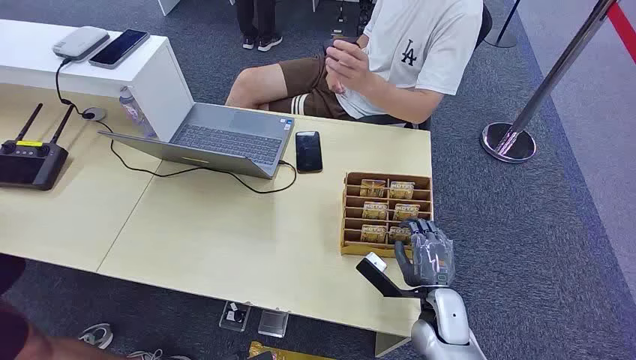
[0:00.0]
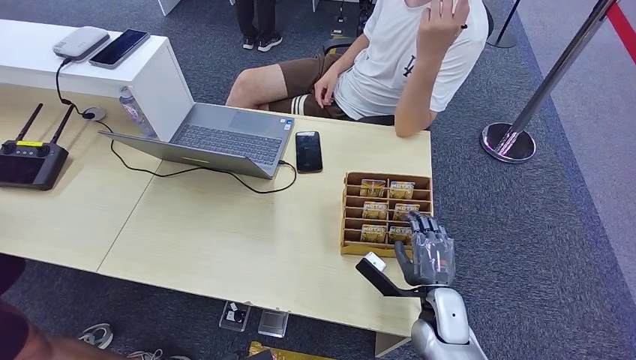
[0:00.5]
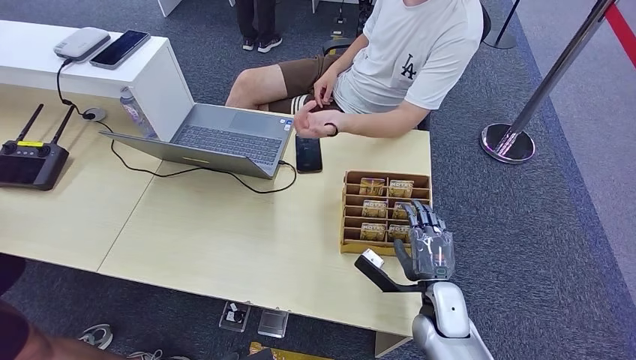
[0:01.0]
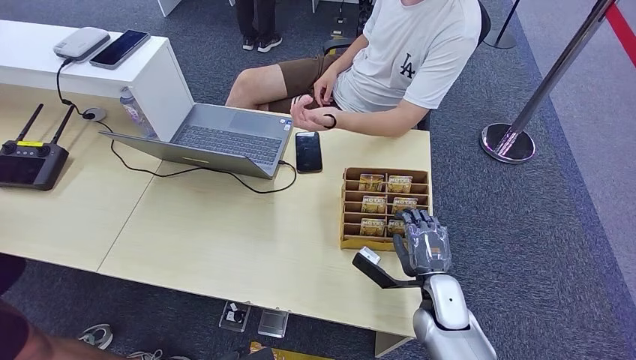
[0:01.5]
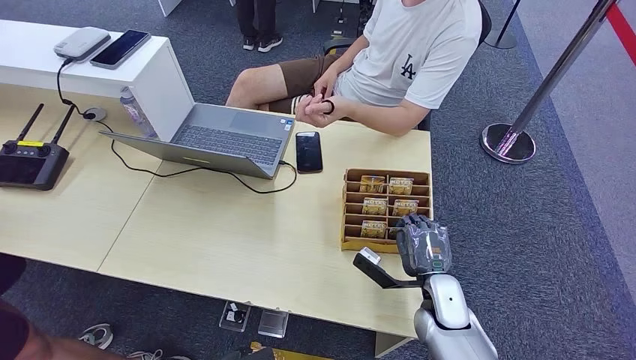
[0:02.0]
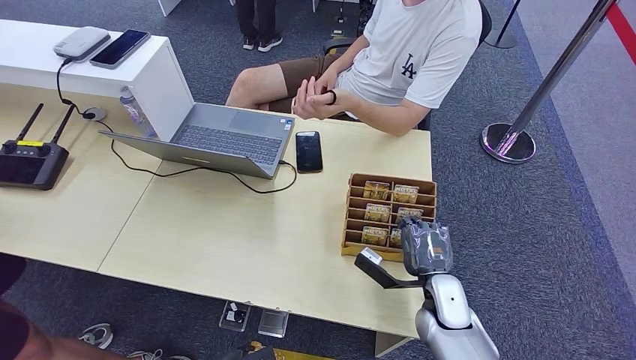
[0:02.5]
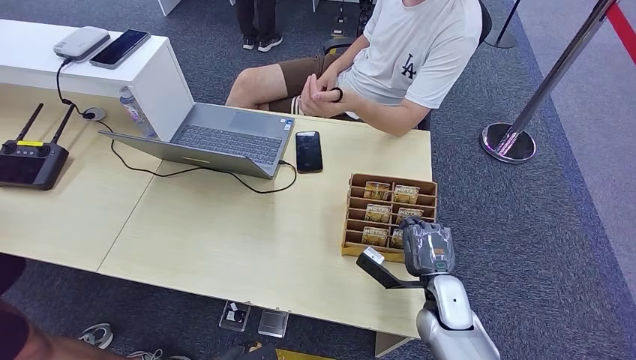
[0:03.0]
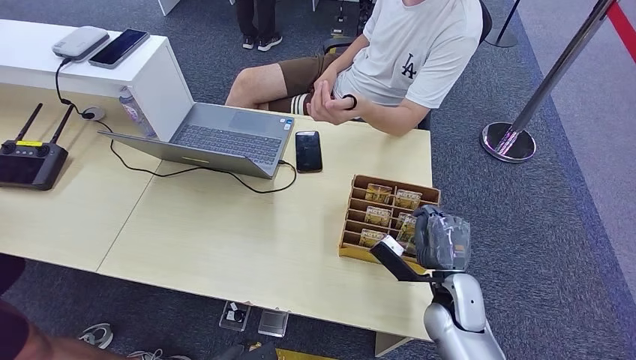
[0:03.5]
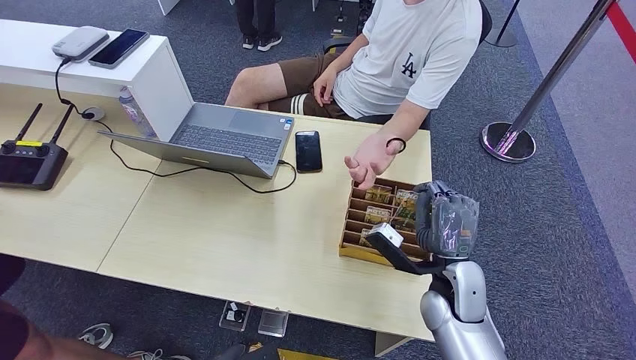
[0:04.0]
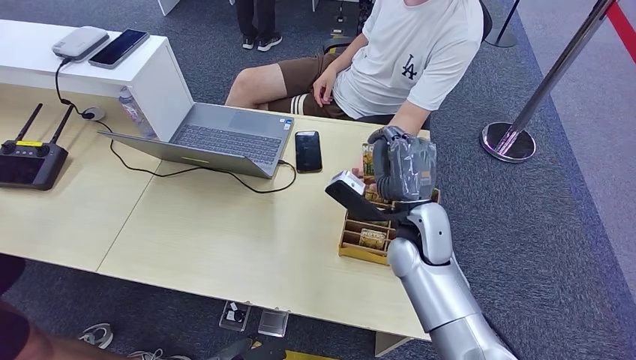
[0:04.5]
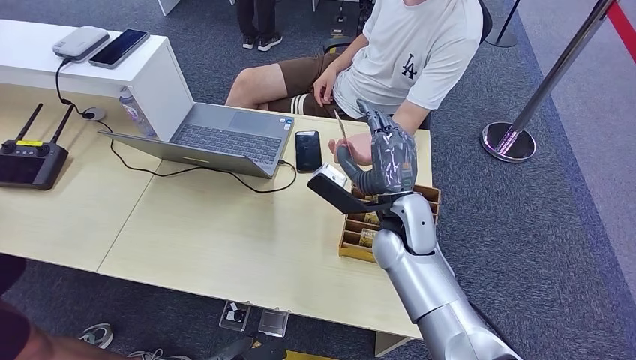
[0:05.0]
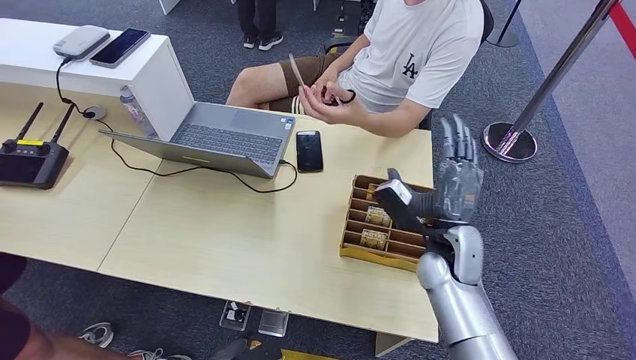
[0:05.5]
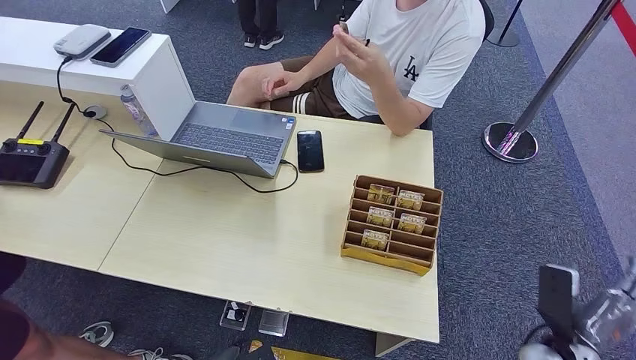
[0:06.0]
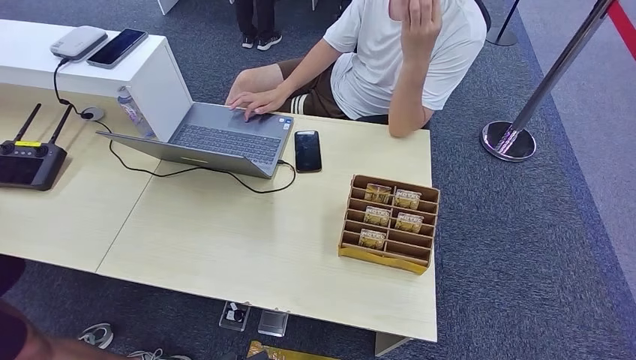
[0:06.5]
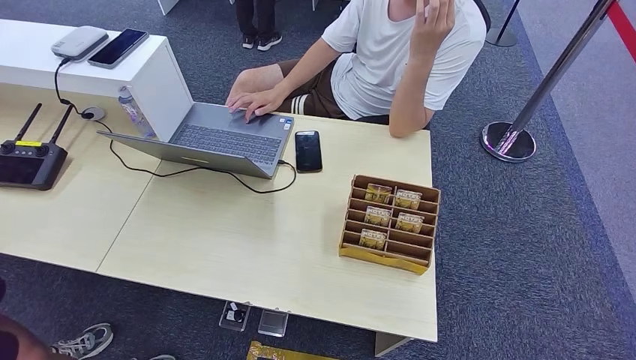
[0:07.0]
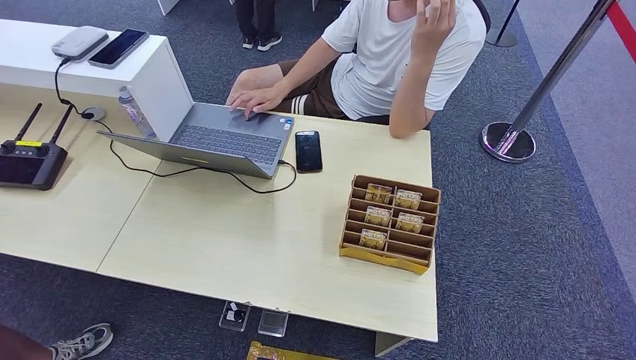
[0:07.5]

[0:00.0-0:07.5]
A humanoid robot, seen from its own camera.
Step, 0:00.0 to 0:04.0: Pick up the key card from the card box.
Step, 0:04.5 to 0:07.5: Hand the key card to the target.
0:02.0 to 0:04.0: The right hand shifts some 5 cm upward.
0:04.0 to 0:05.5: The right hand travels to the left and back again, approximately 10 cm each way.
0:05.5 to 0:07.5: The left hand is displaced backward and to the left by approximately 10 cm. Meanwhile the right hand moves backward and downward, approximately 50 cm.
